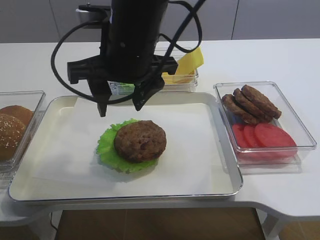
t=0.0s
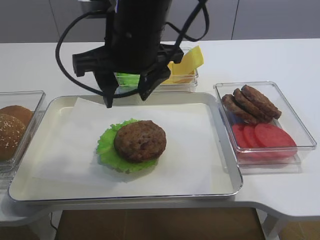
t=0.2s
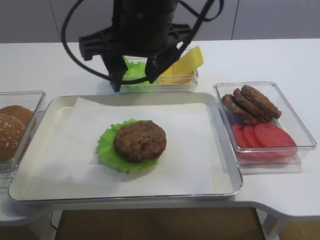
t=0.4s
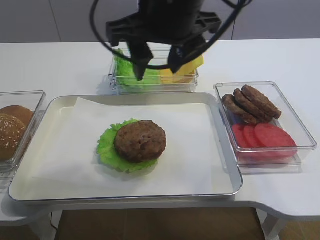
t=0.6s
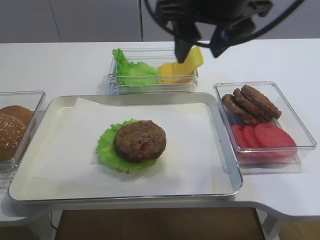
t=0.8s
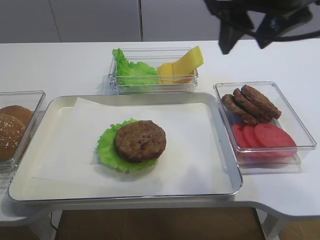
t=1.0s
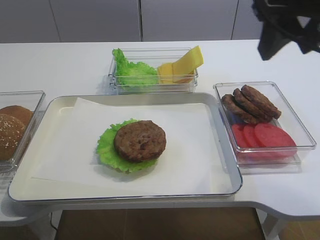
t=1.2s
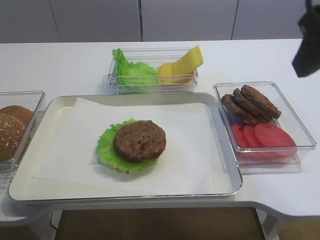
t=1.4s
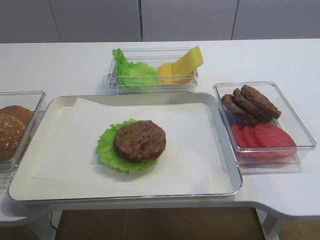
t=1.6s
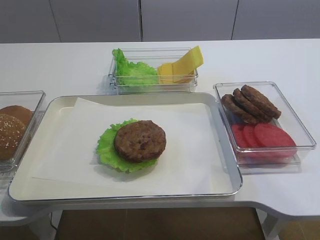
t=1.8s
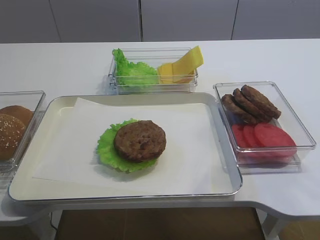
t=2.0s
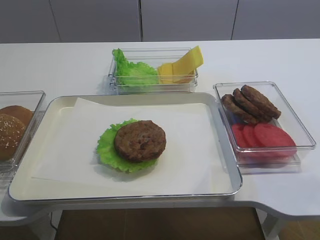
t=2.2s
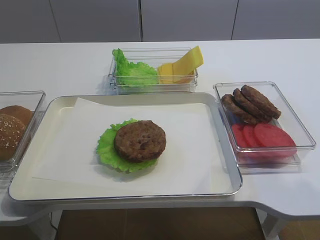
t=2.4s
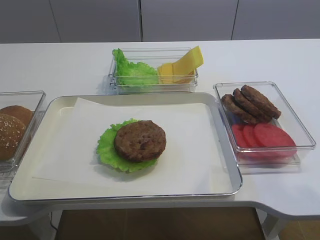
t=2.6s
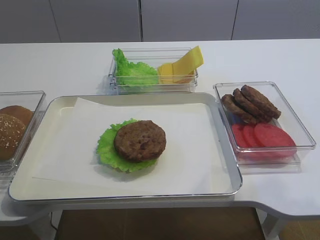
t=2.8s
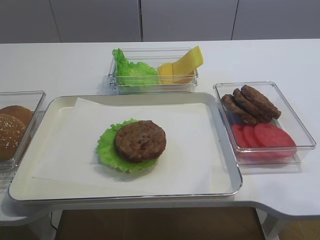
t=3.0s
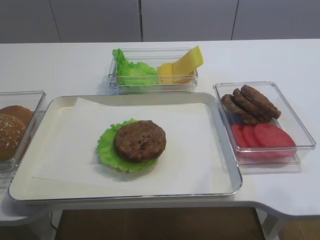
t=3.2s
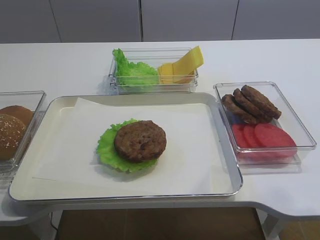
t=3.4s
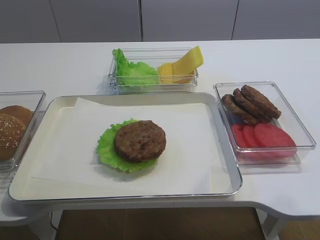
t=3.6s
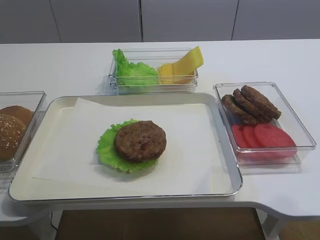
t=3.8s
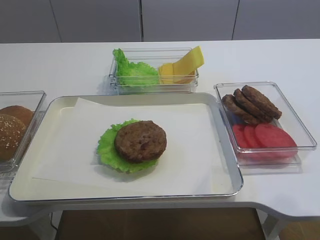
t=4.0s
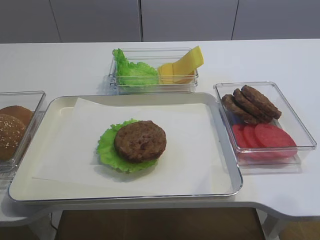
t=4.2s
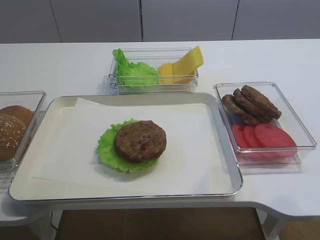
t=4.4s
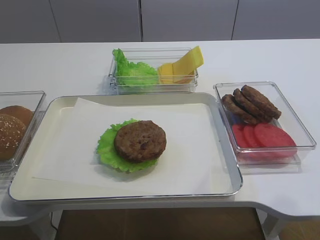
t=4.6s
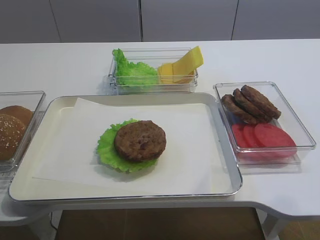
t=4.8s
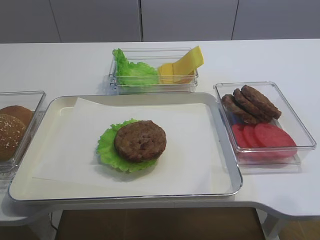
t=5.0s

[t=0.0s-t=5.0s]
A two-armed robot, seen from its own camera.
t=0.0s to t=1.6s: The right gripper is displaced to the right and backward by about 30 cm.

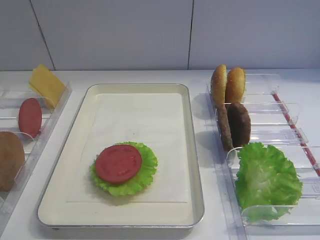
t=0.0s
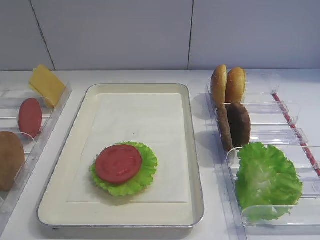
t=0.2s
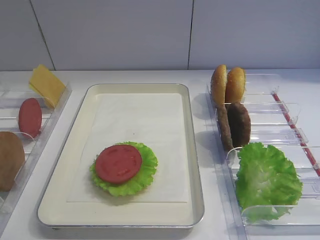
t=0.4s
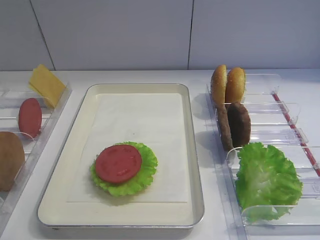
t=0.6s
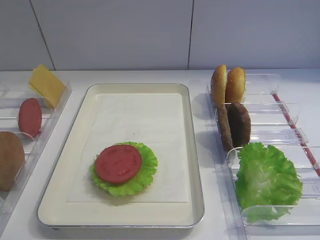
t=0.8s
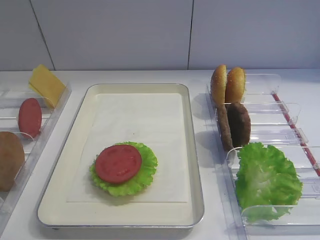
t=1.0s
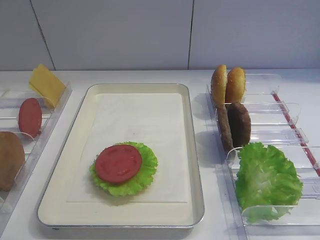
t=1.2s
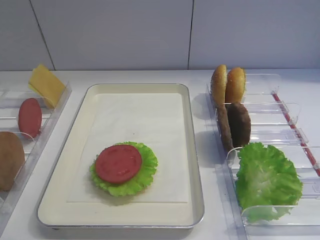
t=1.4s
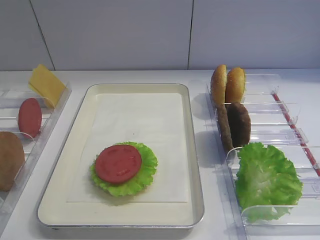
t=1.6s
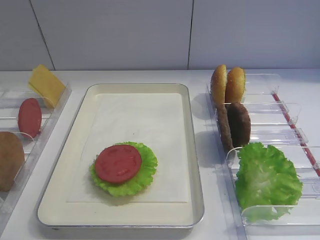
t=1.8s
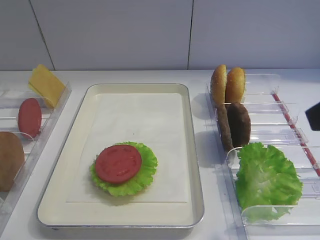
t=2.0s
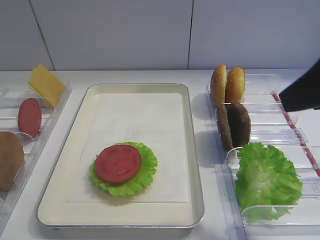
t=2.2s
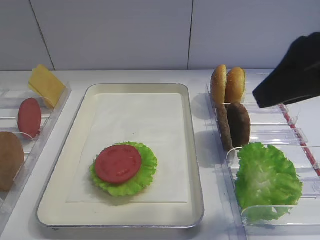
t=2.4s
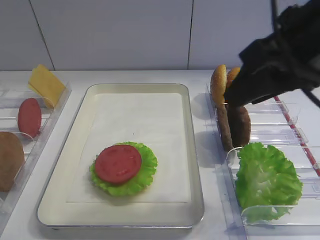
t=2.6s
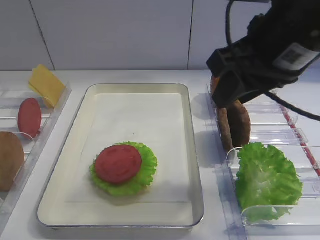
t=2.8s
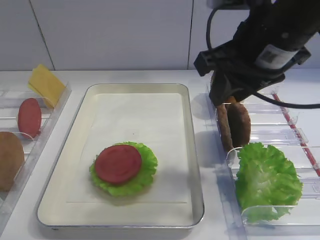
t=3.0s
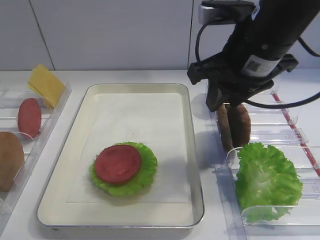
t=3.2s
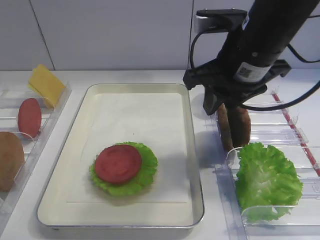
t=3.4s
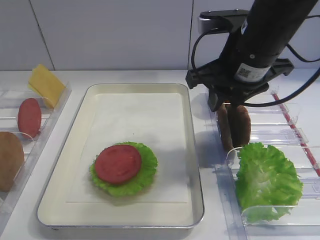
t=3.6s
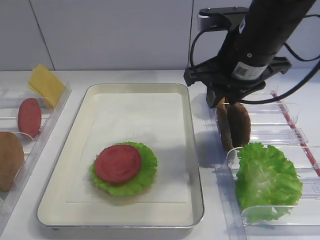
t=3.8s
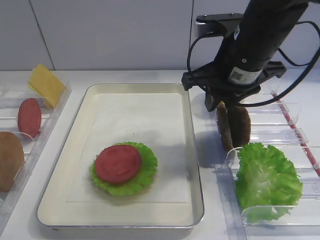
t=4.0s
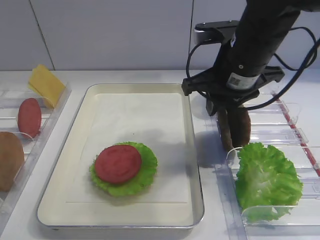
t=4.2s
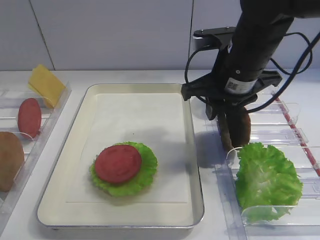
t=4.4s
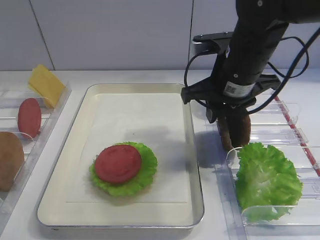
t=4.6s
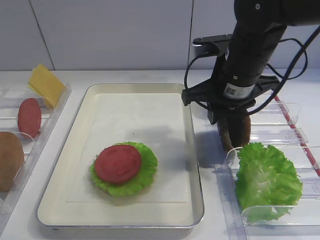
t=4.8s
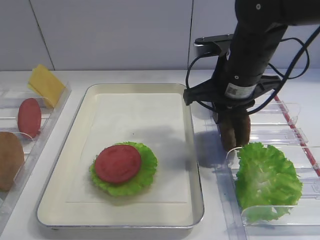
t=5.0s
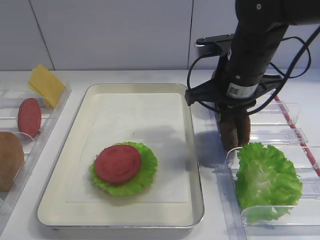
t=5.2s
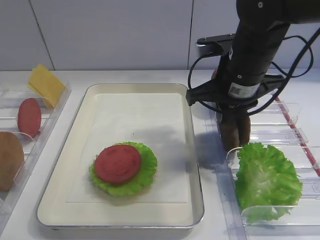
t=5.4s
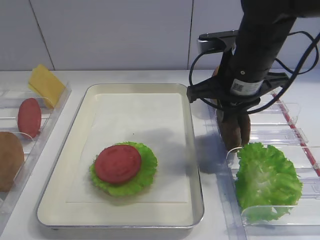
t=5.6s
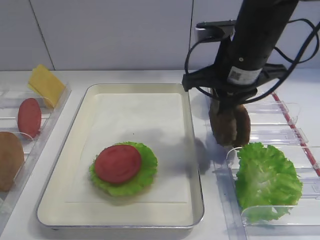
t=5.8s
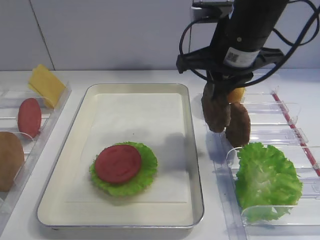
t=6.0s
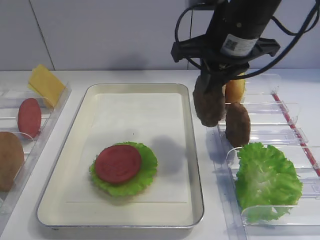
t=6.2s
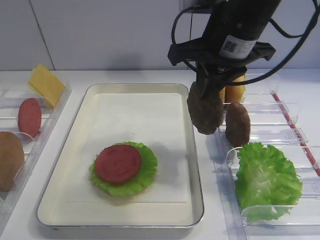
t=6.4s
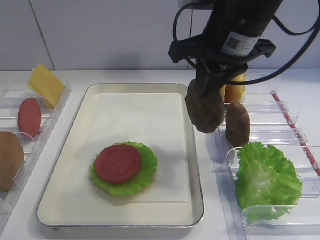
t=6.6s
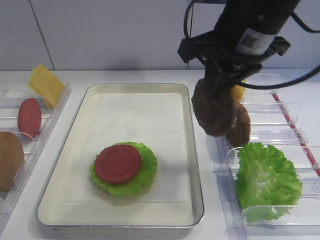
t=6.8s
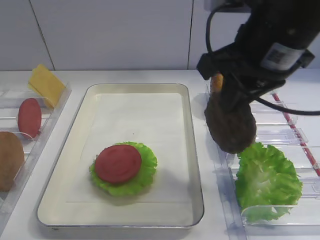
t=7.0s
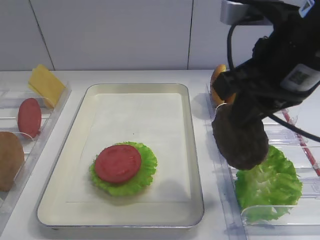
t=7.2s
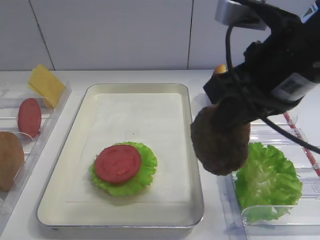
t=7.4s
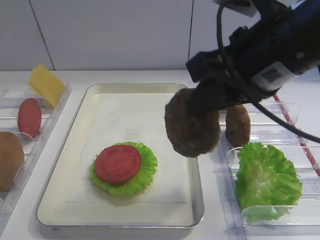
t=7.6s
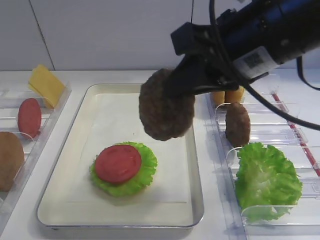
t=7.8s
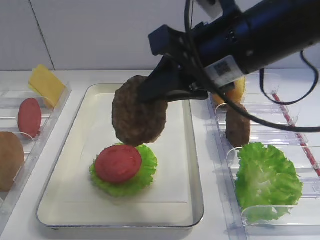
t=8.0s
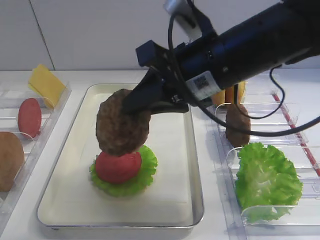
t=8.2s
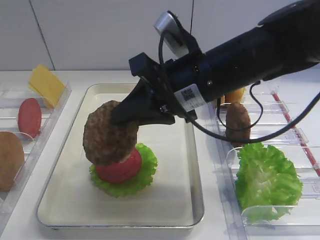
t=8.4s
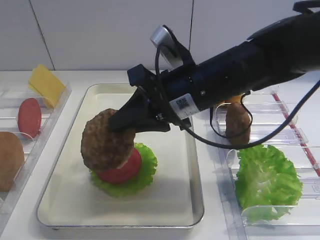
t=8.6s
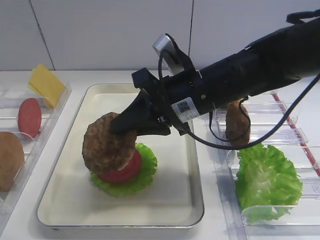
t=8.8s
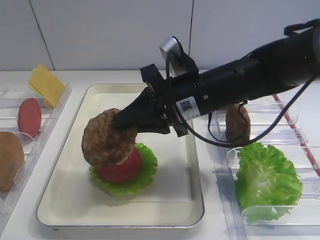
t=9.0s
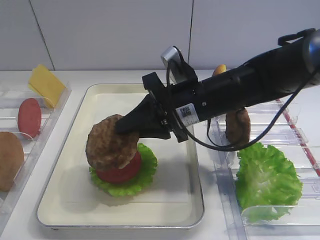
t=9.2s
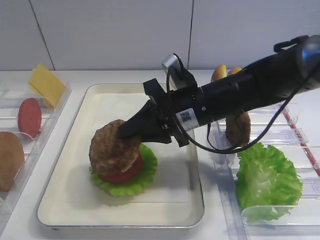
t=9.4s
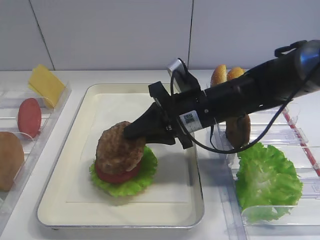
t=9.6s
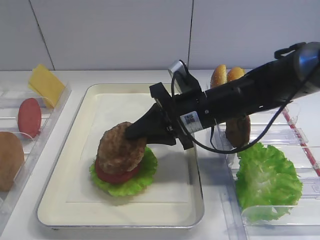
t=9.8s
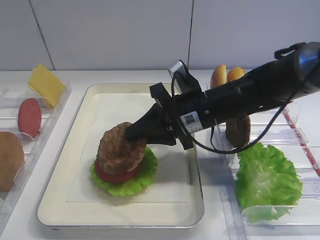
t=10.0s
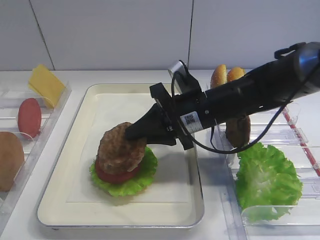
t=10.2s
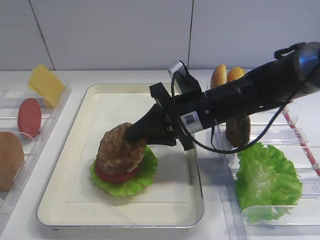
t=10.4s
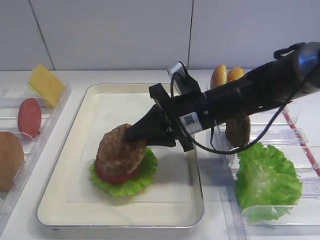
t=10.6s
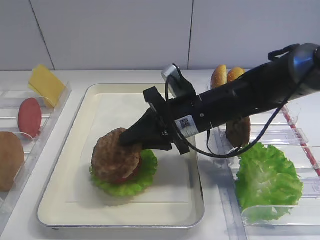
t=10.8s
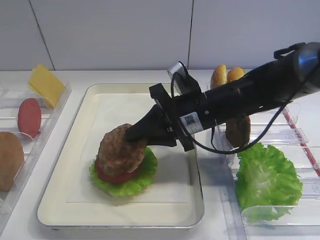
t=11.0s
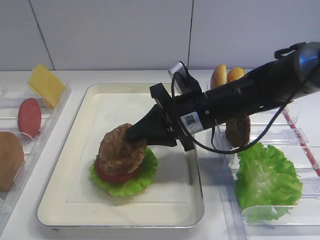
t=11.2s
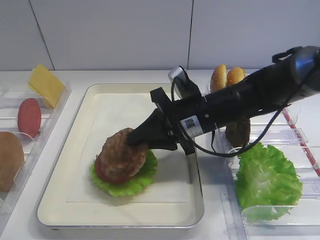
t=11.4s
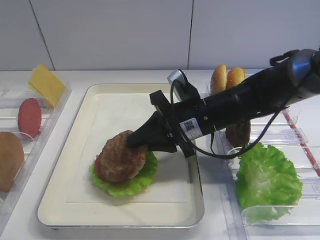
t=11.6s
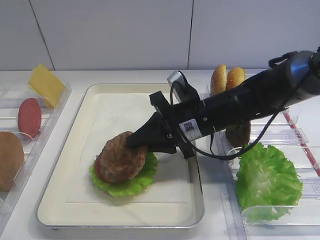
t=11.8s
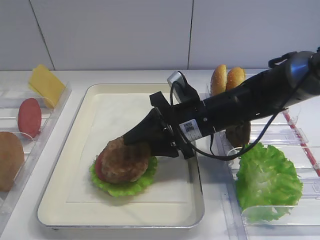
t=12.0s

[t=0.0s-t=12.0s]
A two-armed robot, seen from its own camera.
Step, t=0.0s to t=6.0s: Pick up the cutlet with the right gripper.
t=1.6s to t=3.0s: The right gripper goes some 20 cm forward and to the left.
t=3.0s to t=4.4s: The right gripper goes some 10 cm downward and forward.
t=4.4s to t=6.0s: The right gripper closes its fingers.
t=6.0s to t=7.6s: The right gripper moves backward, about 10 cm.
t=7.6s to t=9.0s: The right gripper travels downward, forward and to the left by approximately 15 cm.
t=9.0s to t=10.4s: The right gripper changes place by some 5 cm.
t=10.4s to t=12.0s: The right gripper opens up.

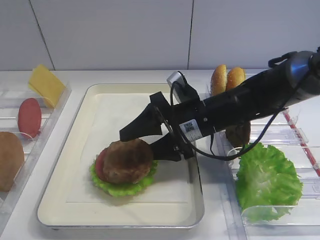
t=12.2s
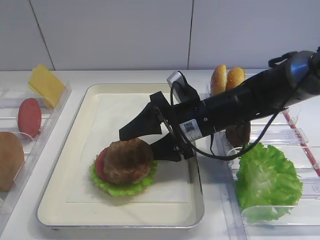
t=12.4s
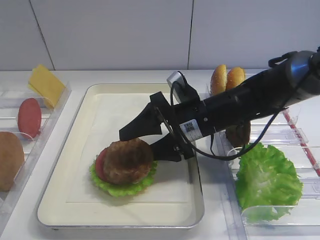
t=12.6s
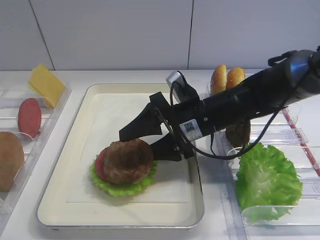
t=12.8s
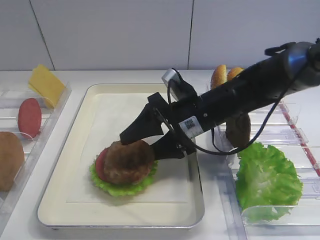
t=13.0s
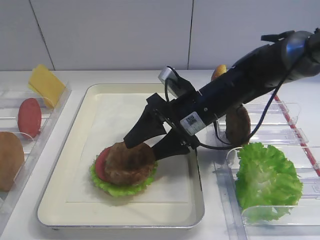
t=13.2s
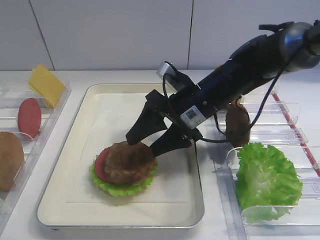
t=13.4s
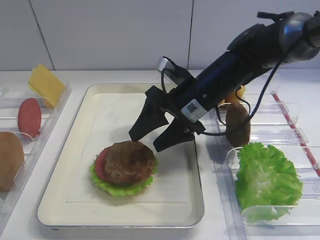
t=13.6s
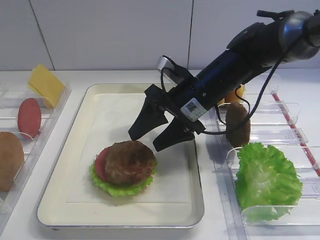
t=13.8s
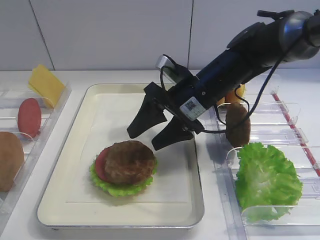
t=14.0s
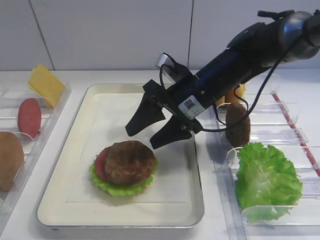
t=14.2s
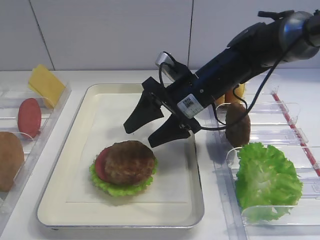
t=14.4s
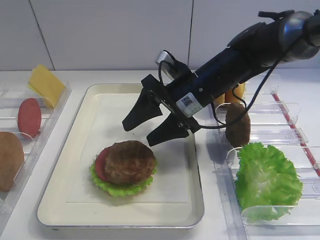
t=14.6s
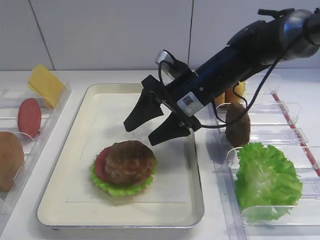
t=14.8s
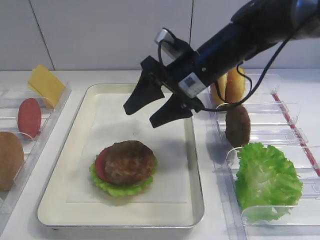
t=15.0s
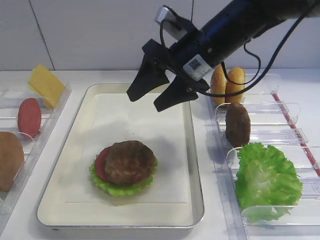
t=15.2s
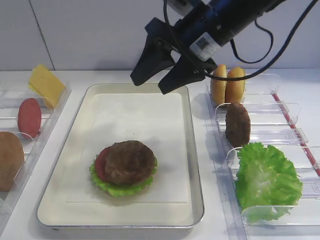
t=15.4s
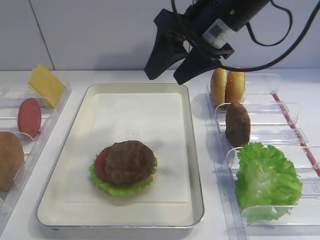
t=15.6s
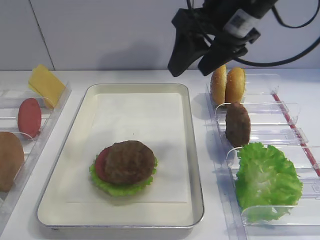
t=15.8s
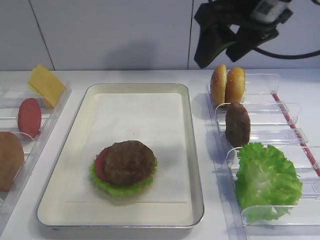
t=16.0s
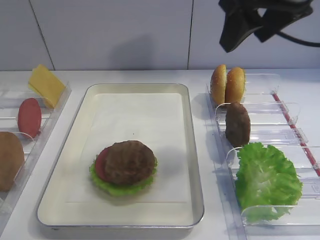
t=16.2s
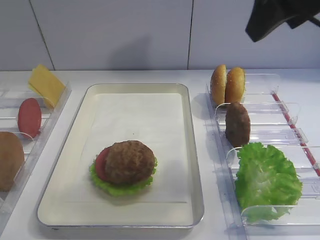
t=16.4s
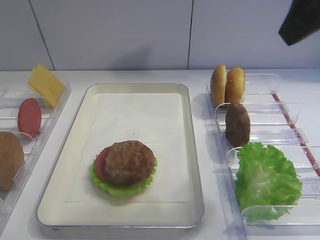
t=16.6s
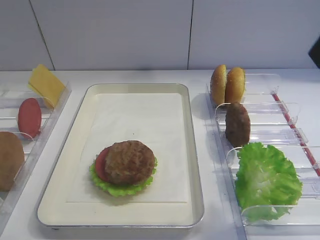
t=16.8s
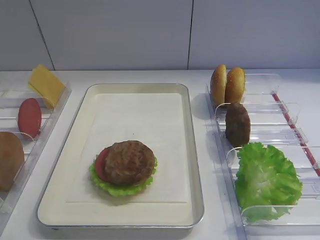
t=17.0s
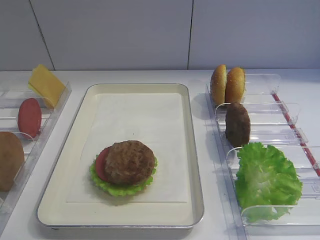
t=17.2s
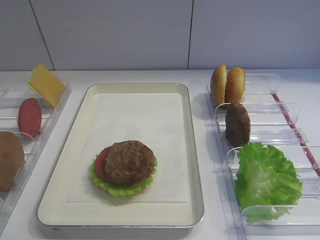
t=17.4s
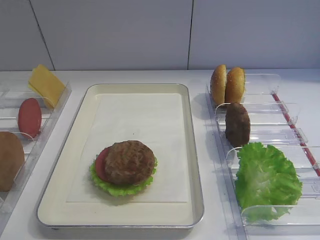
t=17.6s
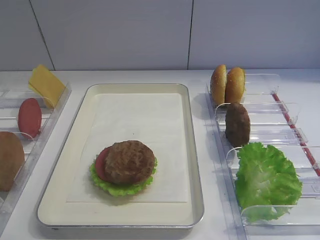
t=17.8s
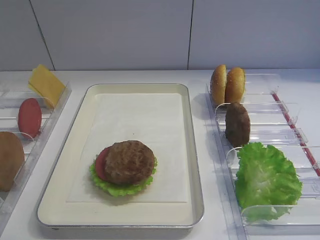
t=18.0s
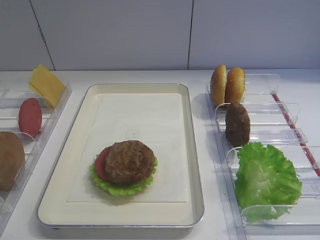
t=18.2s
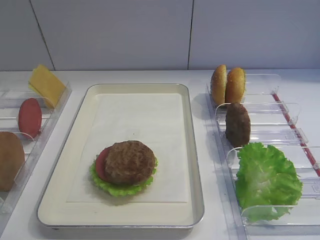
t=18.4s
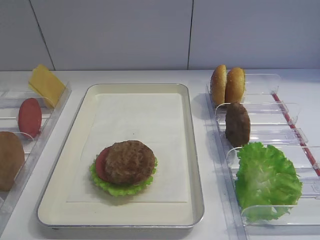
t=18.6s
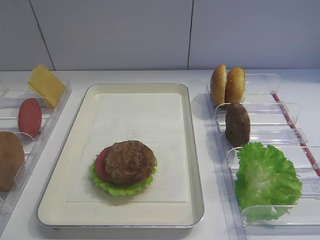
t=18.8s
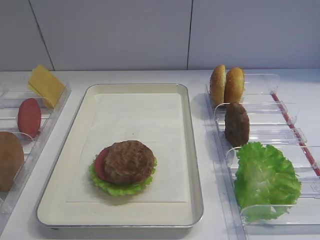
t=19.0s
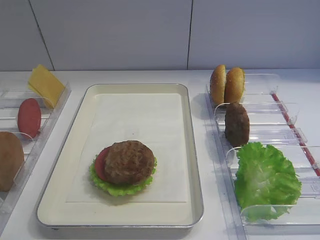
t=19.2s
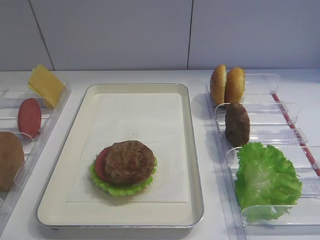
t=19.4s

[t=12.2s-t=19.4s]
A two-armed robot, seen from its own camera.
Step, t=12.2s to t=14.8s: Place the cutlet on the tomato slice with the right gripper.
t=13.6s to t=15.0s: There are only small adjustments of the grippers.
t=15.0s to t=16.6s: The right gripper travels upward, backward and to the right by about 25 cm.
t=16.6s to t=18.0s: The right gripper goes approximately 25 cm backward, downward and to the right.
